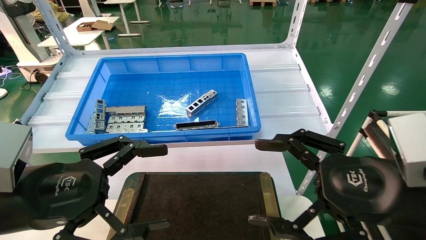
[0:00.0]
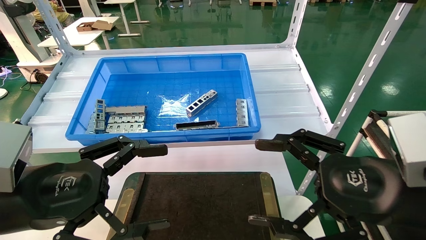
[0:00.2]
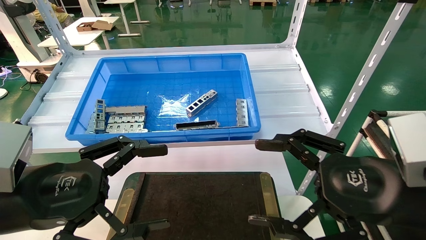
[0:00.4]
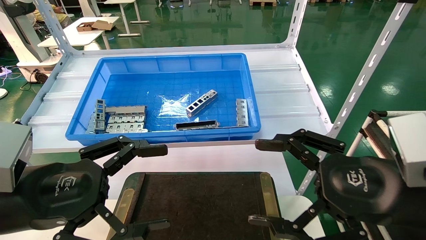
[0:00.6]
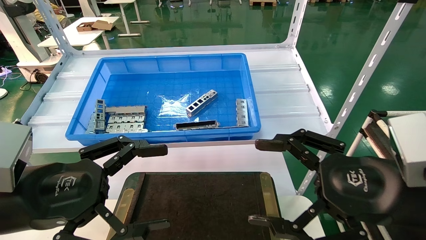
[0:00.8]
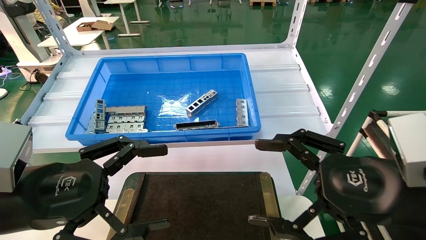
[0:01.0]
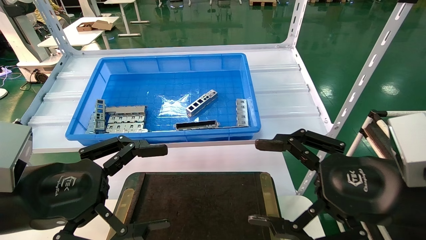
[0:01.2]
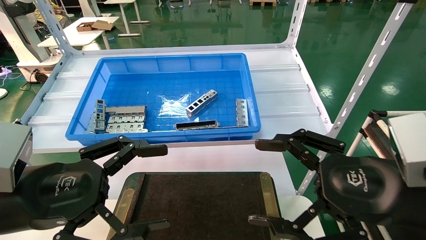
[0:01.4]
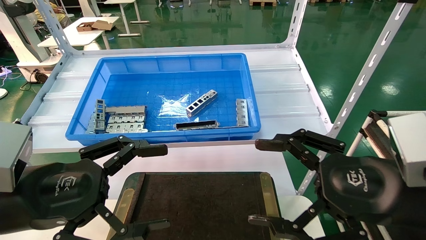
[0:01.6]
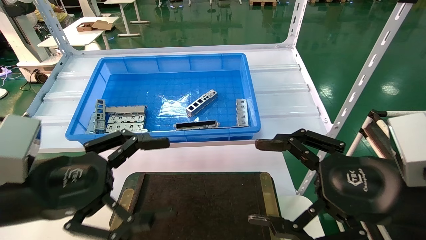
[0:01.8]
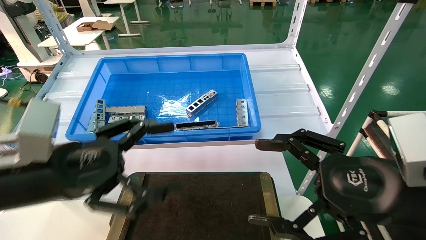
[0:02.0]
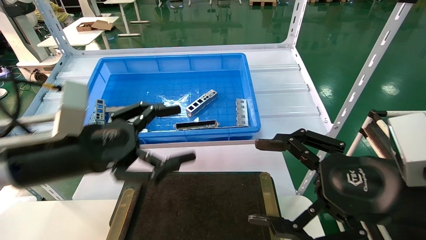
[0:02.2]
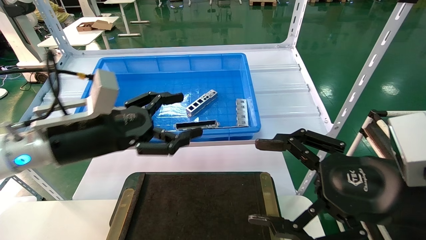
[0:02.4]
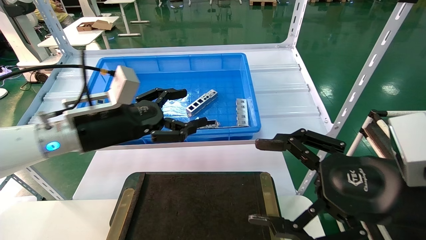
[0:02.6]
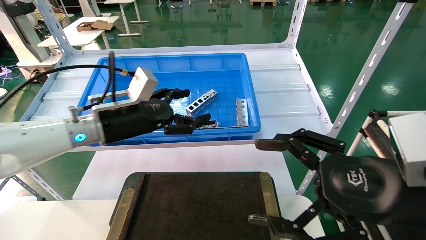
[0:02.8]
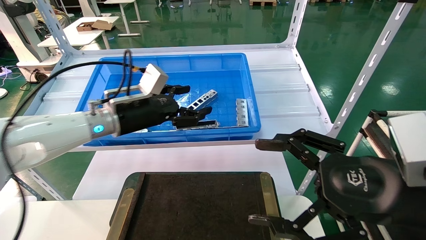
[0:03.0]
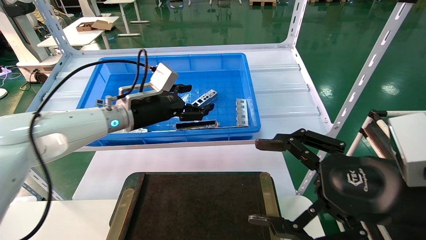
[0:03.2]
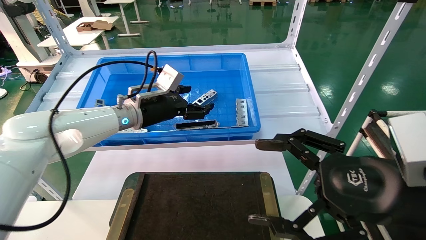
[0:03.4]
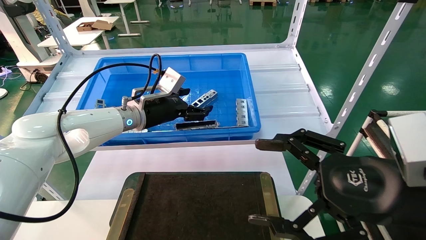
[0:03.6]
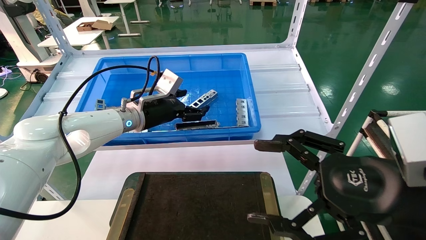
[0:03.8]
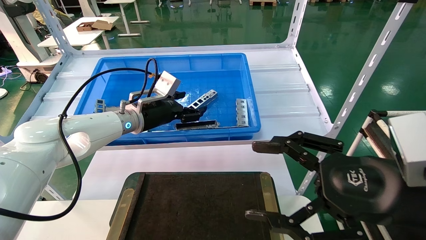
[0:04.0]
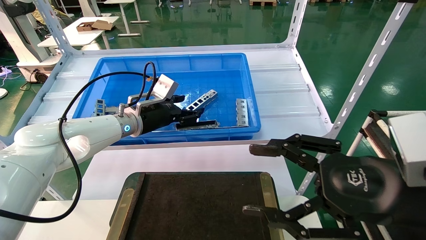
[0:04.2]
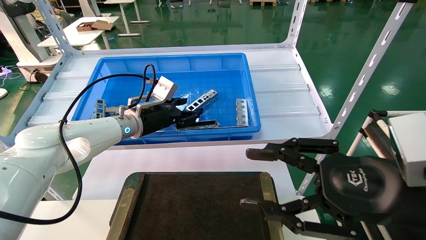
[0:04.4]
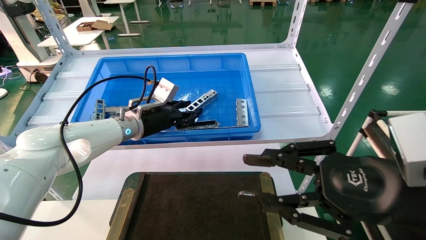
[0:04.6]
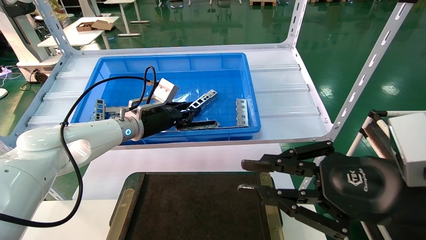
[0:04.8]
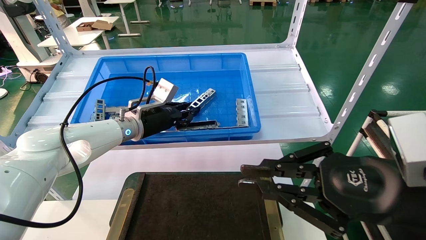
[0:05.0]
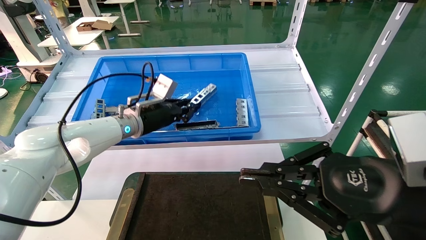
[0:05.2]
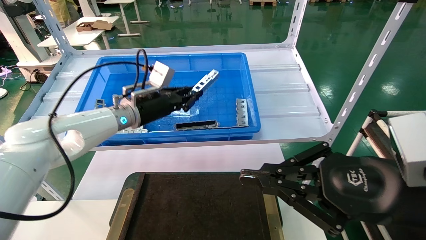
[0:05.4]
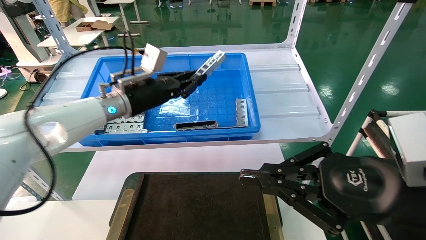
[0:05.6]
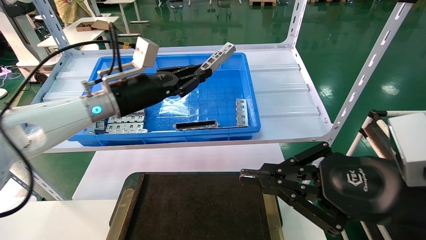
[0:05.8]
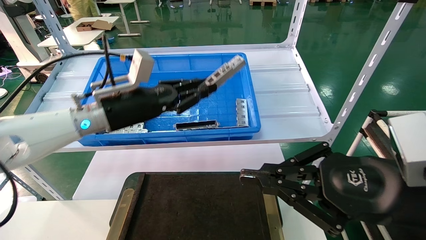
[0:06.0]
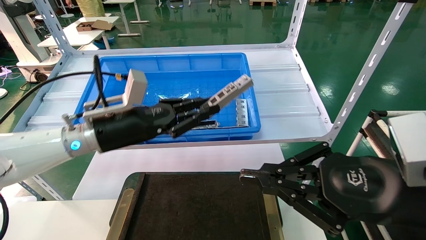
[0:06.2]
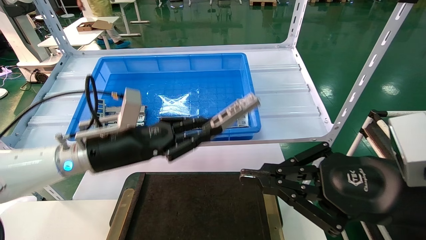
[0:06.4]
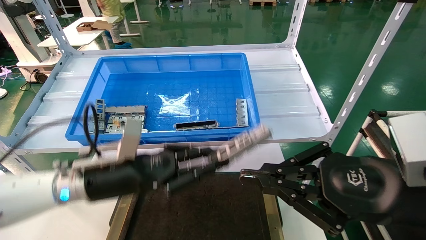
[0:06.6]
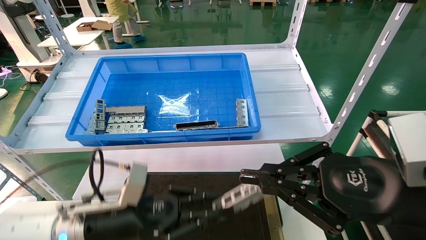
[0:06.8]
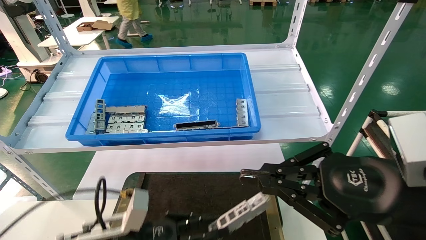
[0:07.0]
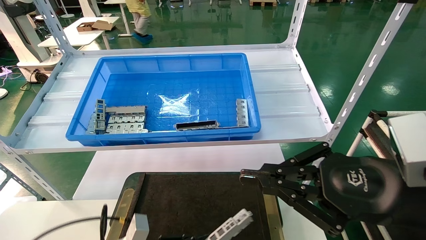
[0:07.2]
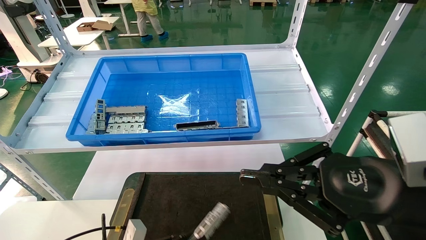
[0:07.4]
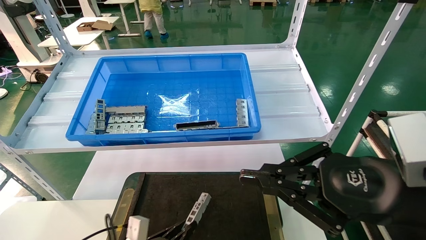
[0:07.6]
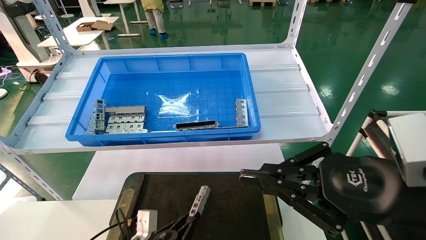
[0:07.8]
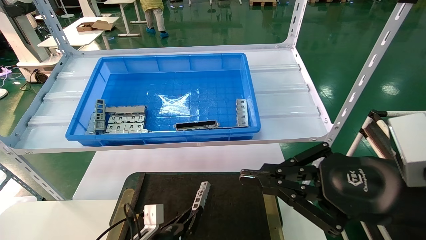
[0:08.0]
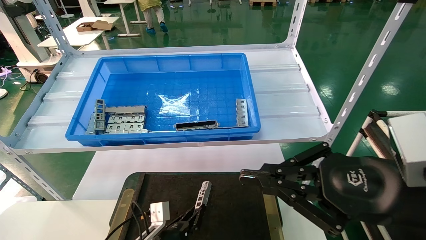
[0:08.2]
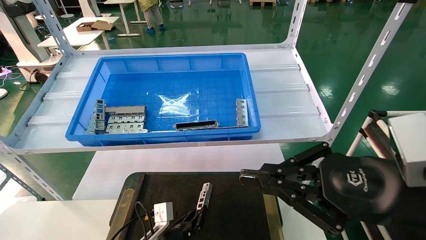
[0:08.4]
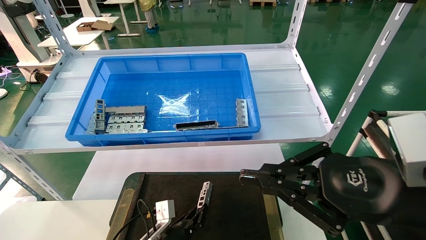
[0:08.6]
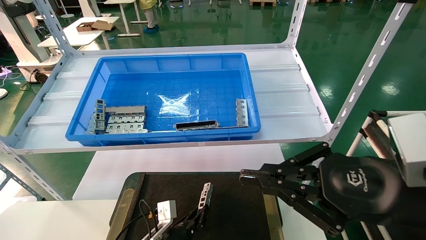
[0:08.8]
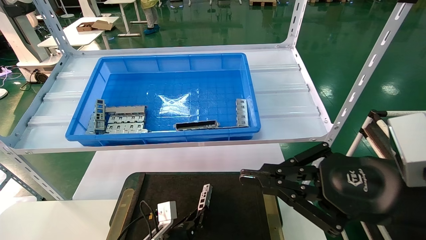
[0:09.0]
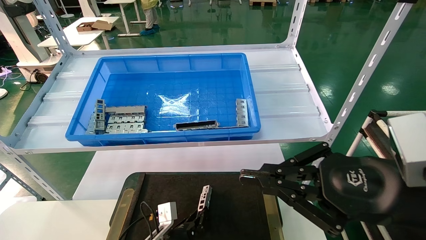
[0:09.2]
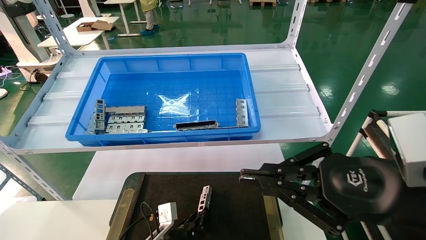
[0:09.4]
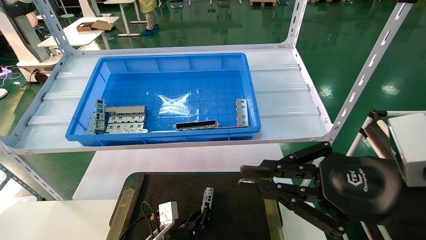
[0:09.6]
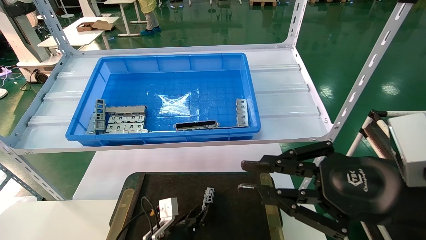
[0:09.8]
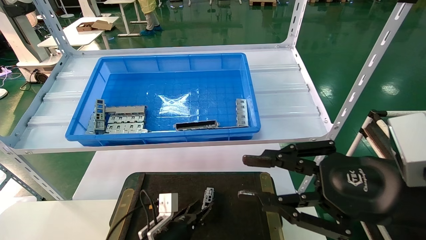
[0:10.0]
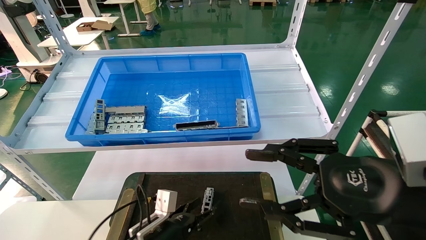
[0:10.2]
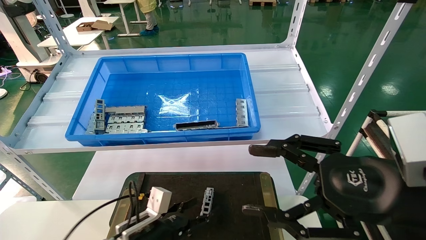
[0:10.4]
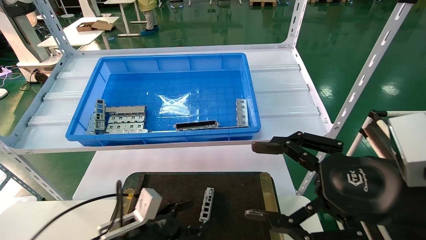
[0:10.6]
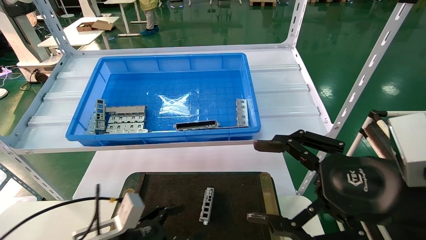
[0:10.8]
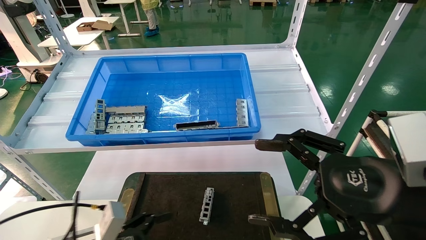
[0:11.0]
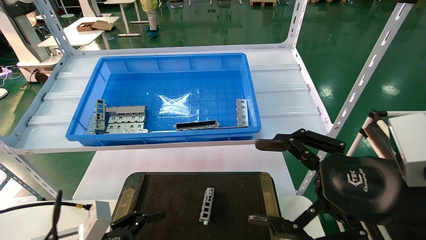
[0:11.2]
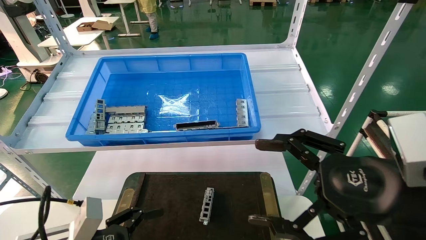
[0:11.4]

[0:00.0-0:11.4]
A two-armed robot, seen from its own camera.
Task of the whole recording: Grasp the part with one hand and place it on the black container.
Step, 0:02.0 to 0:04.8: Pick up the front USB bracket from the feeding area.
Step, 0:05.0 to 0:09.6: Place the front USB bracket into the box.
0:00.0 to 0:01.4: Neither gripper changes place.
0:01.4 to 0:02.8: The left gripper is displaced forward by about 20 cm.
0:02.8 to 0:04.2: The left gripper is displaced forward by approximately 10 cm.
0:04.2 to 0:05.6: The right gripper closes. Meanwhile the left gripper travels upward by about 5 cm, and closes up.
0:05.6 to 0:07.2: The left gripper moves downward and backward, roughly 35 cm.
0:07.2 to 0:08.6: The left gripper moves forward, to the right and downward, approximately 15 cm.
0:08.6 to 0:10.0: There are only small adjustments of the grippers.
0:10.0 to 0:11.4: The right gripper opens its fingers, while the left gripper heads to the left, backward and upward, covering roughly 20 cm, and opens.
